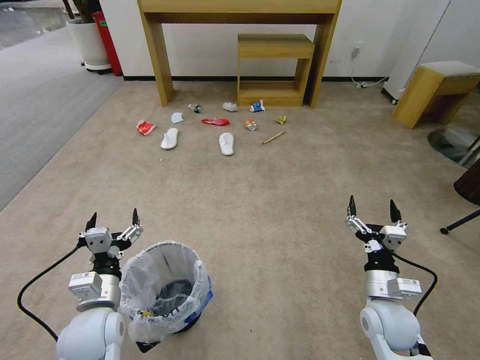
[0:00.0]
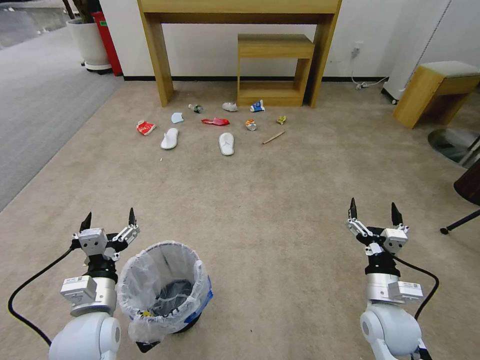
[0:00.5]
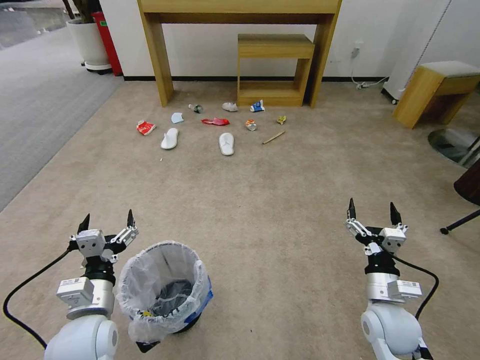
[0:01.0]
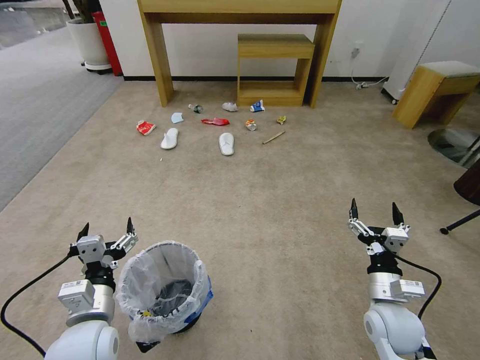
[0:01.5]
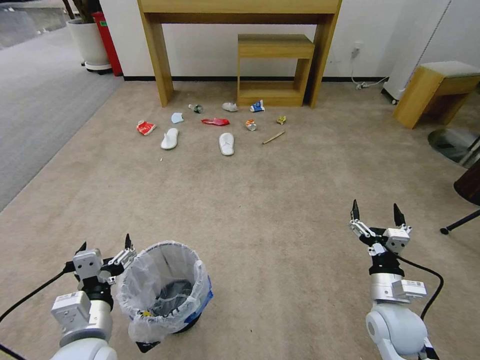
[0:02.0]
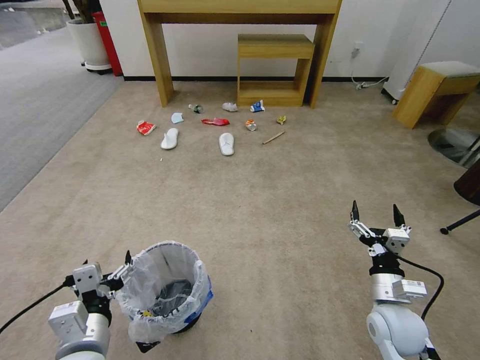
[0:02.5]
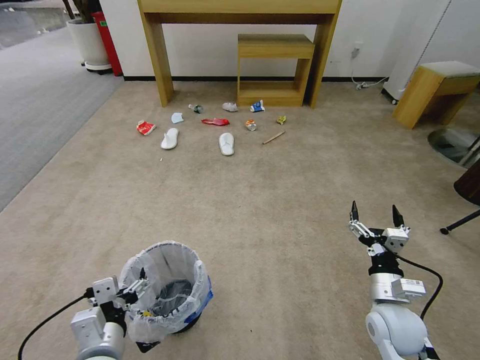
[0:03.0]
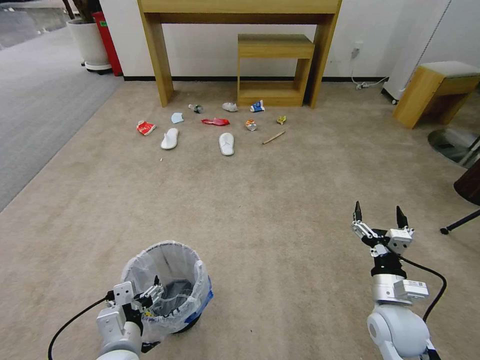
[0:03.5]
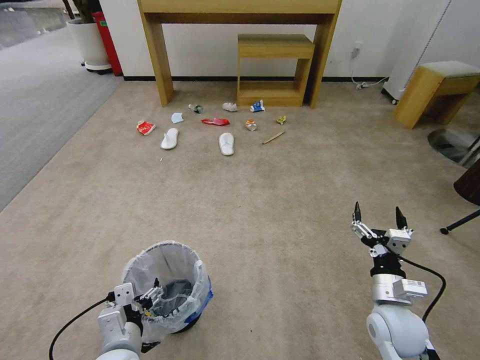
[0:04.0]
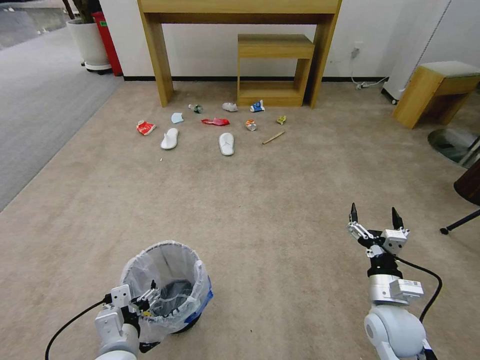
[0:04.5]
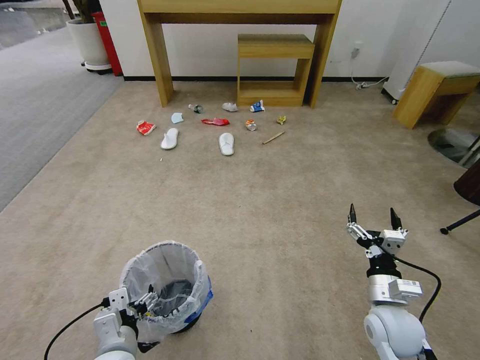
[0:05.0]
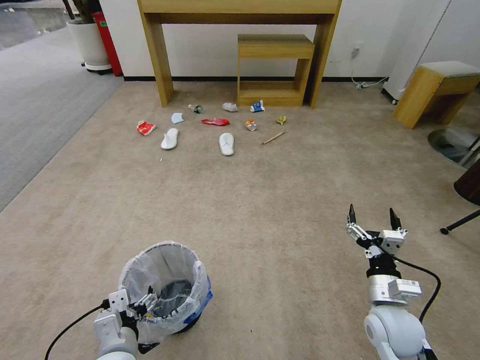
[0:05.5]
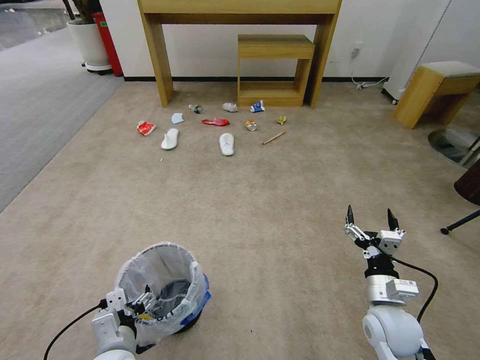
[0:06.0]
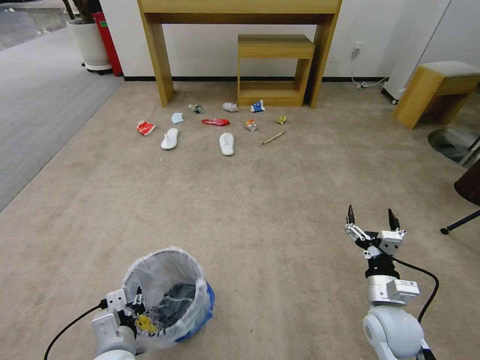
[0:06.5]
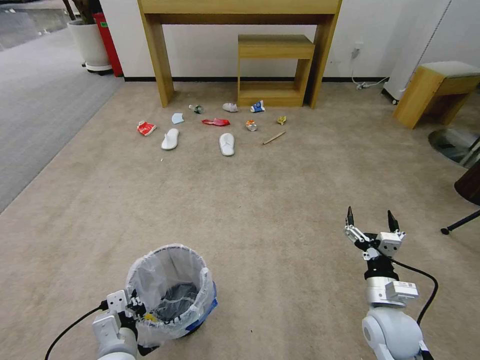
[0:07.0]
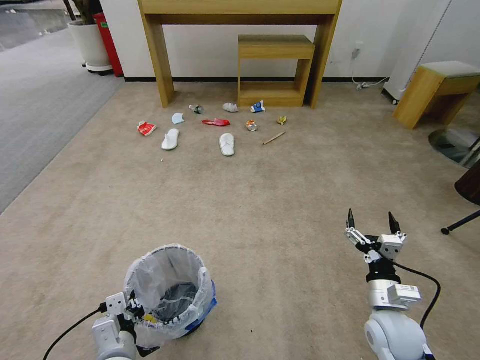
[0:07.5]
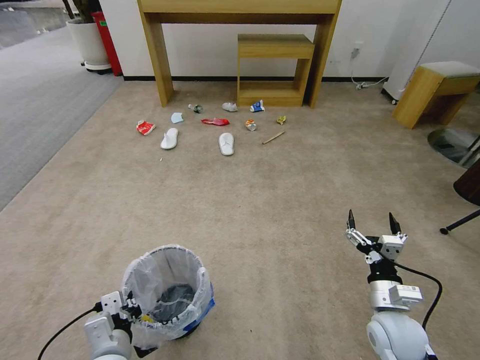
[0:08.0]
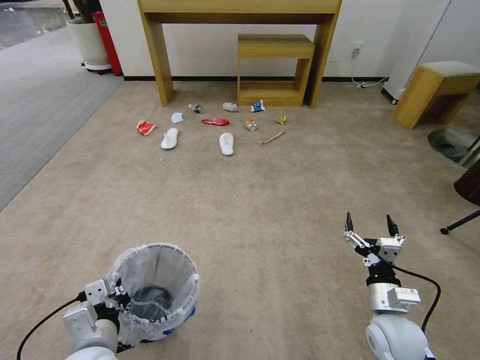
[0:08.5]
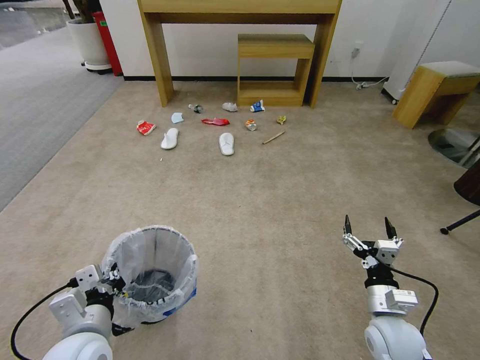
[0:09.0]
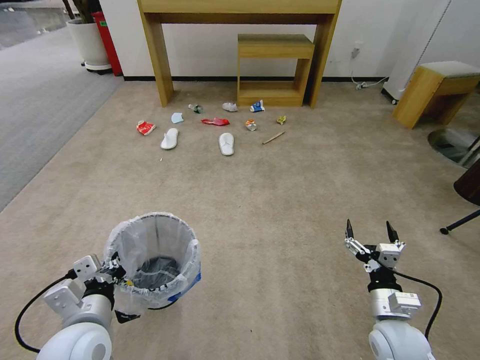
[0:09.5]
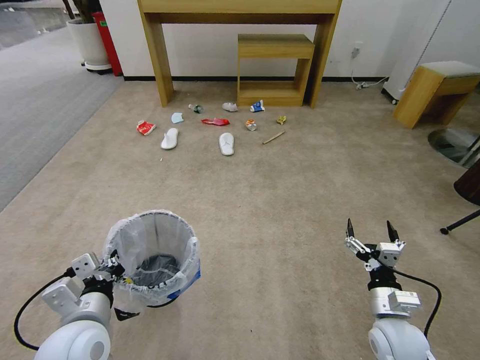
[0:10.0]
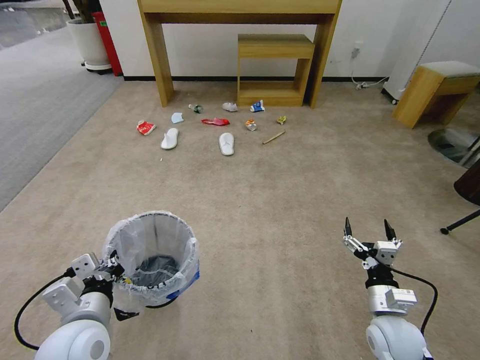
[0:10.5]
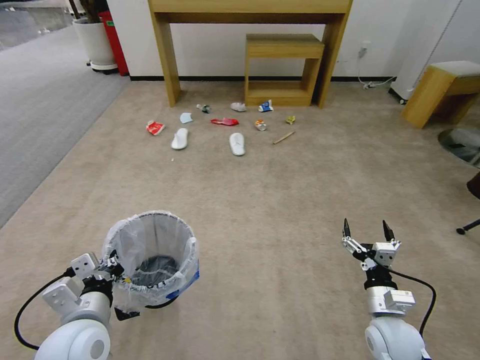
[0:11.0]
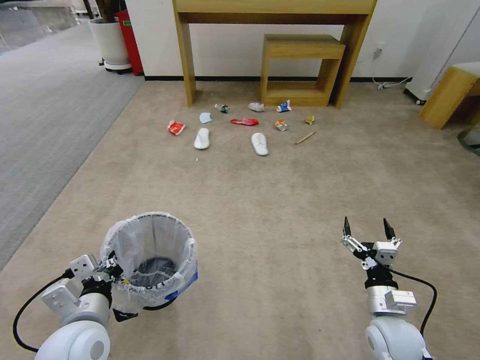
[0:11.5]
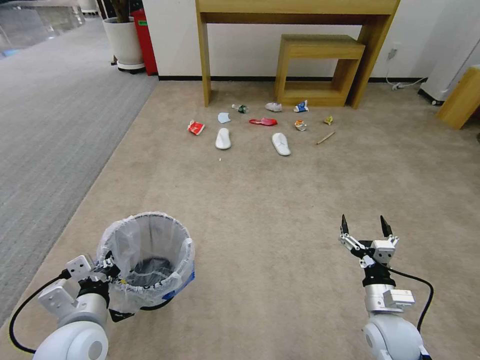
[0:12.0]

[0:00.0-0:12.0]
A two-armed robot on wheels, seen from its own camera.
Task of the whole recording: Pick up the trash bin and place the garbage on the floor into it.
0:02.0 to 0:04.0: The left gripper heads downward, covering about 5 cm.
0:04.0 to 0:06.0: The grippers stay close to where they were, moving slightly.
0:06.0 to 0:08.0: The left gripper closes up.
0:08.0 to 0:10.0: The left gripper moves upward, approximately 10 cm.

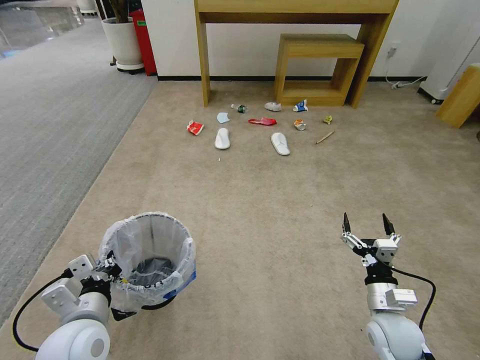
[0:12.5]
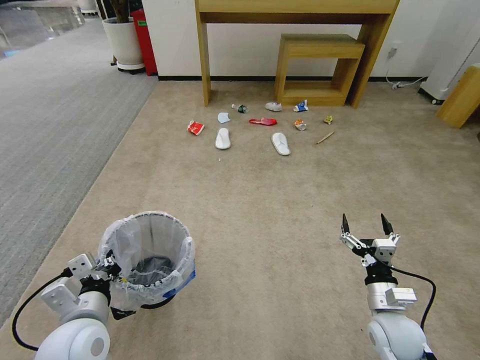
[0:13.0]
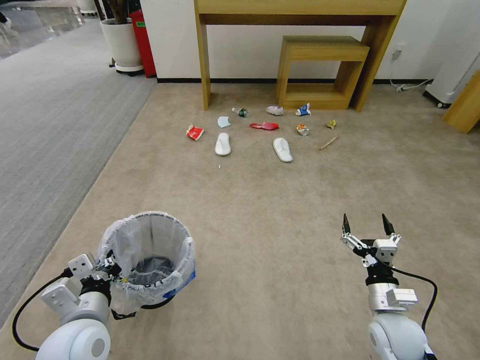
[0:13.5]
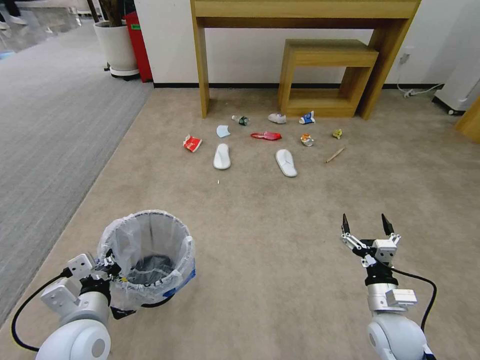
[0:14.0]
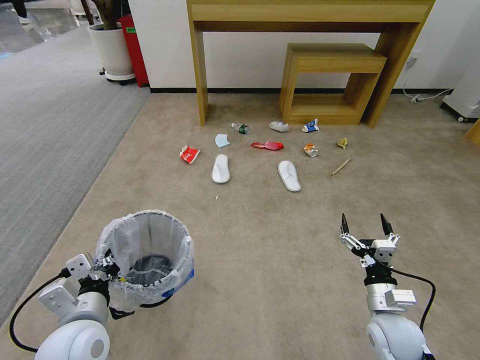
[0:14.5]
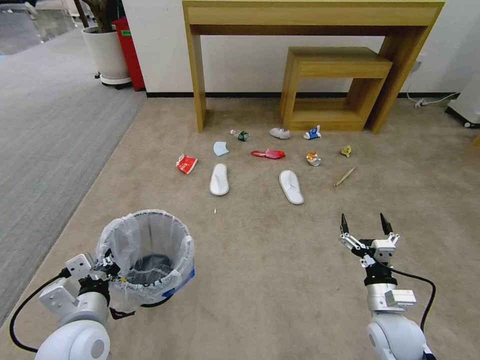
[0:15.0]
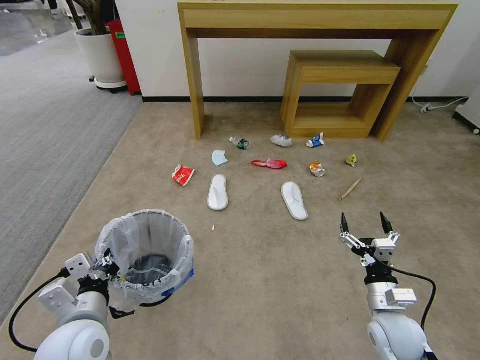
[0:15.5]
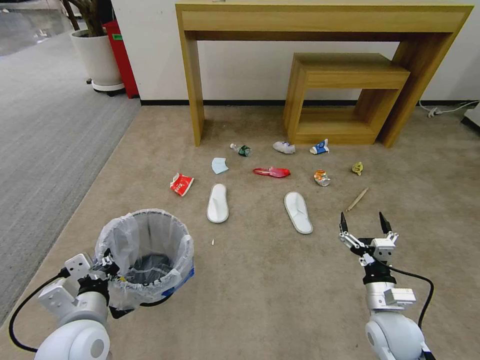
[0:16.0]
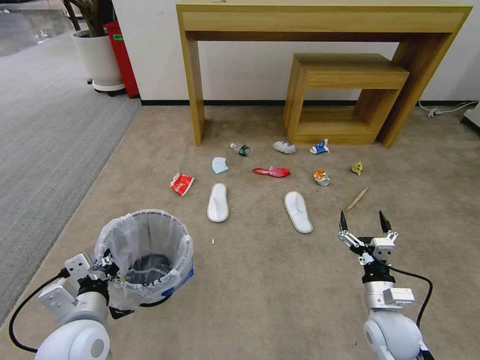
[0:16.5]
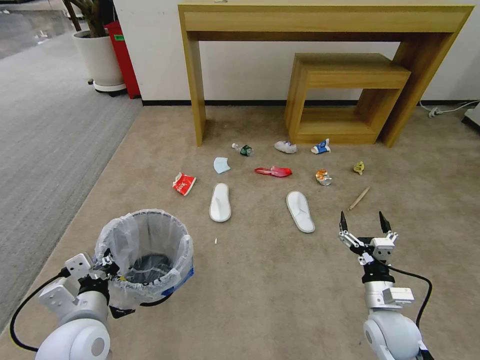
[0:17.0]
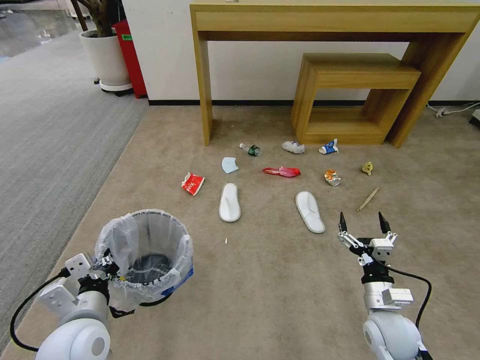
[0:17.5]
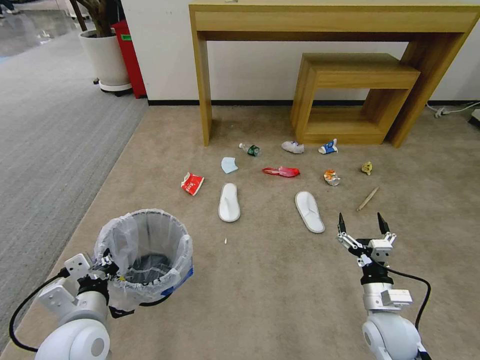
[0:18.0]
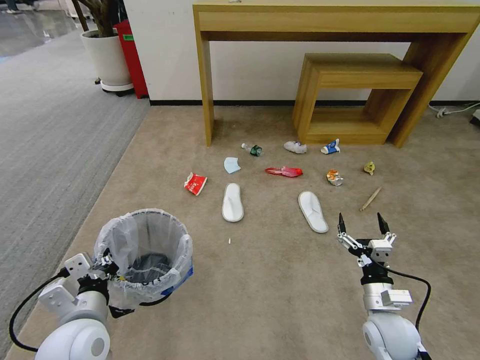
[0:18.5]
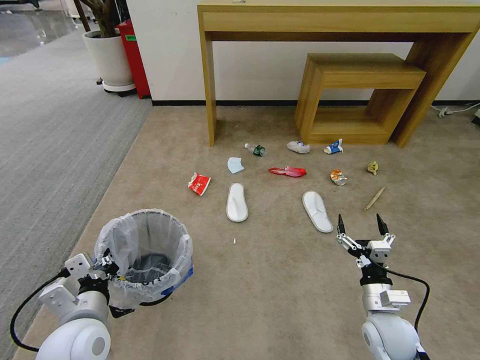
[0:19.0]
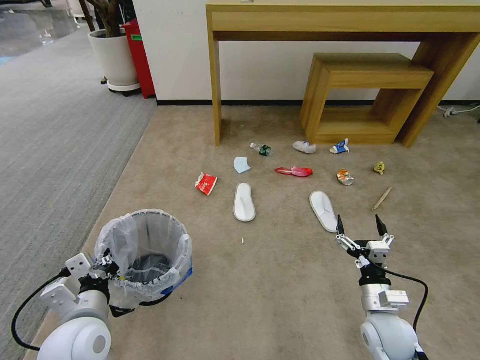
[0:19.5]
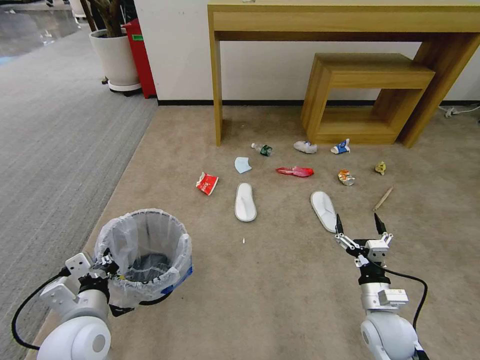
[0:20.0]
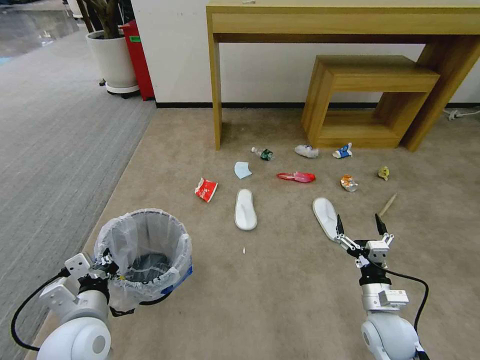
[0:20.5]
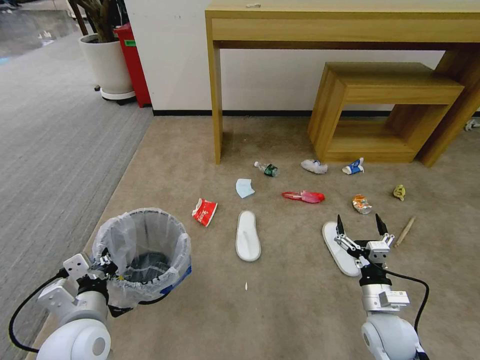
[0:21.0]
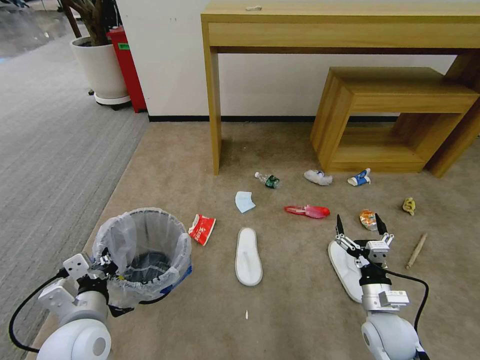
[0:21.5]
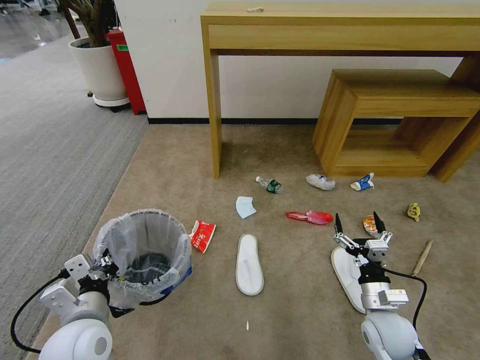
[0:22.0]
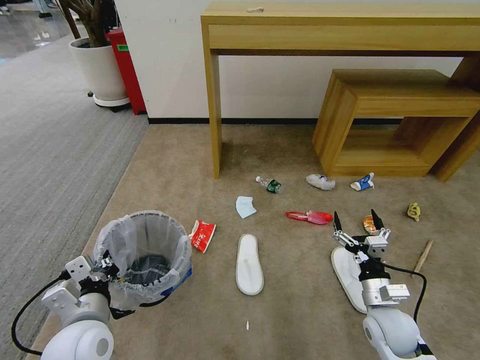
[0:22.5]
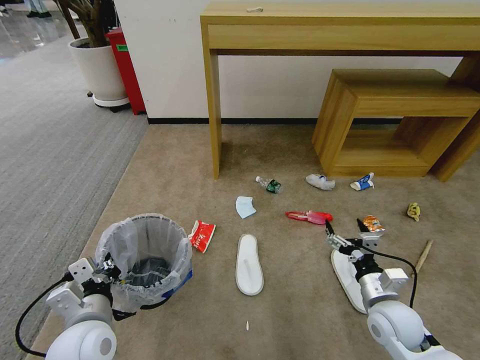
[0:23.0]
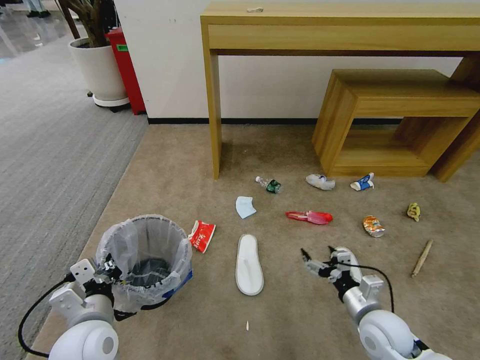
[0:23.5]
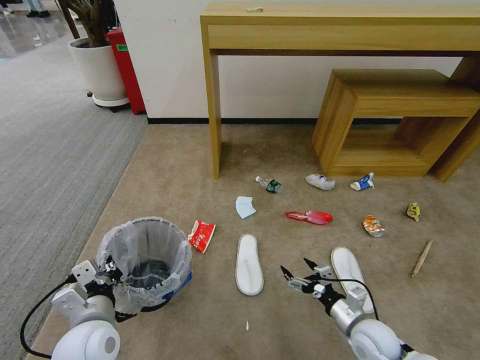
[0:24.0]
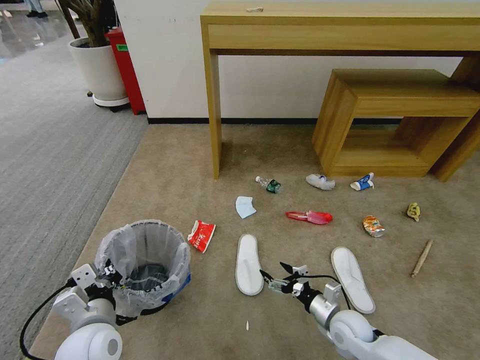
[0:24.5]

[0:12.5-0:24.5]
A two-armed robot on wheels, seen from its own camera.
Task of the whole recording: Pick up the trash bin and place the garbage on the floor into it.
0:16.5 to 0:20.5: The two grippers keep their place.
0:22.5 to 0:24.5: The right gripper is displaced downward and to the left by approximately 10 cm.

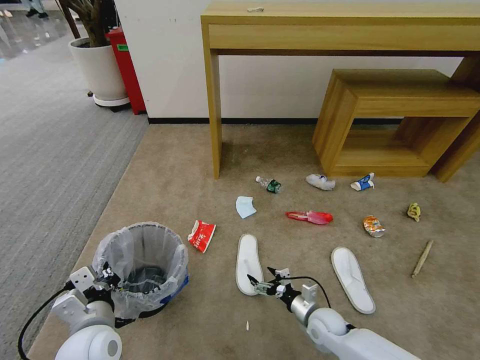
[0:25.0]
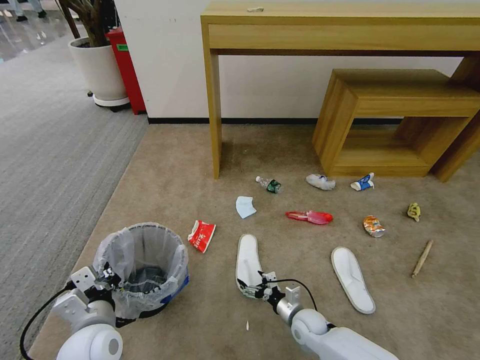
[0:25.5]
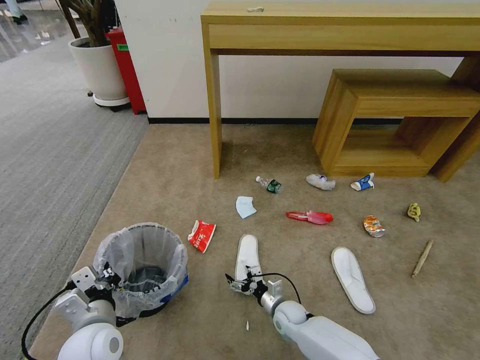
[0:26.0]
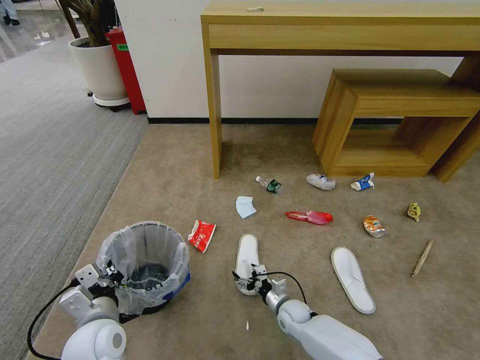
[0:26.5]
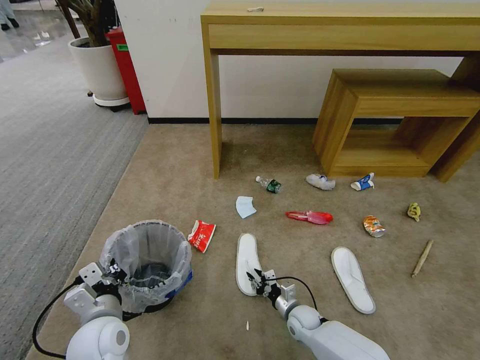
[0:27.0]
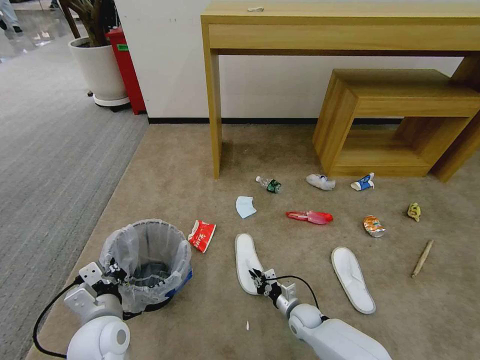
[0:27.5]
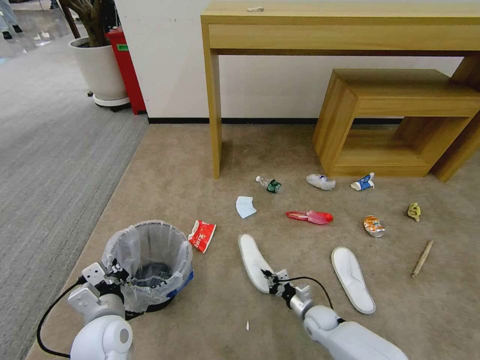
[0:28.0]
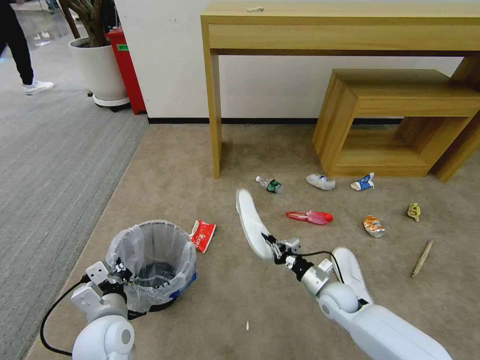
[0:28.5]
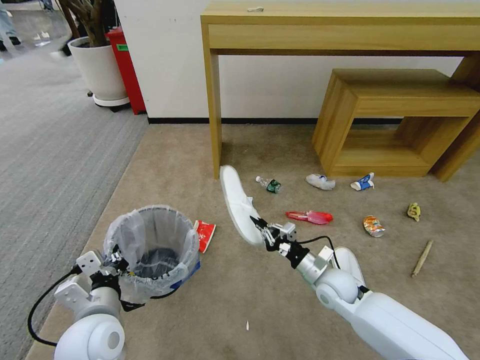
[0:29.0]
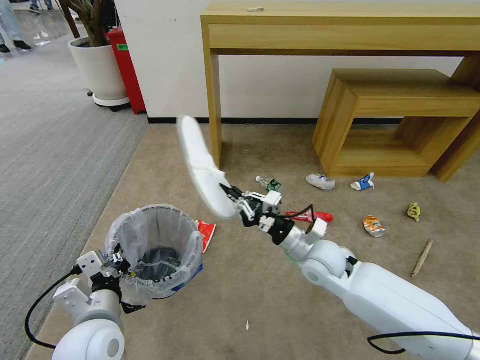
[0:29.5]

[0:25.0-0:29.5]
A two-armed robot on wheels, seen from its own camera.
Task of the whole recording: Pick up the trash bin and place the garbage on the floor into it.
0:25.0 to 0:27.0: The right gripper moves downward, roughly 5 cm, and closes its fingers.
0:27.0 to 0:29.5: The left gripper goes about 5 cm upward, while the right gripper shifts roughly 30 cm upward, and closes up.
